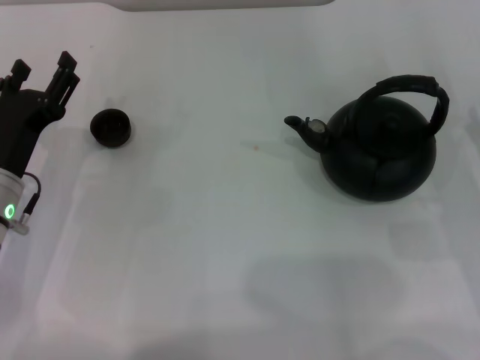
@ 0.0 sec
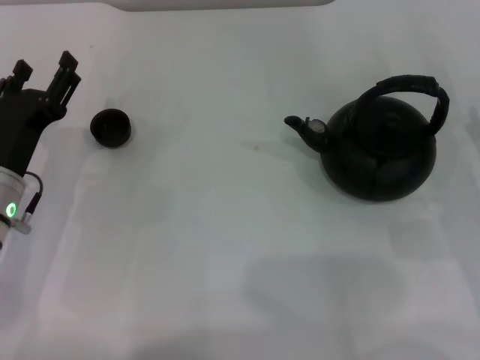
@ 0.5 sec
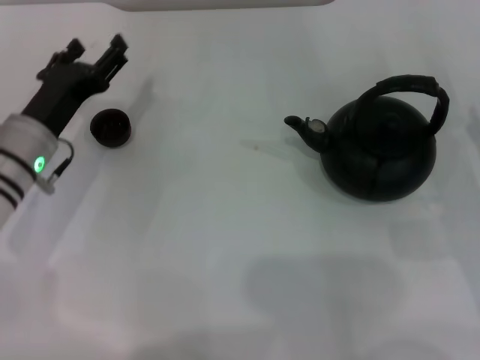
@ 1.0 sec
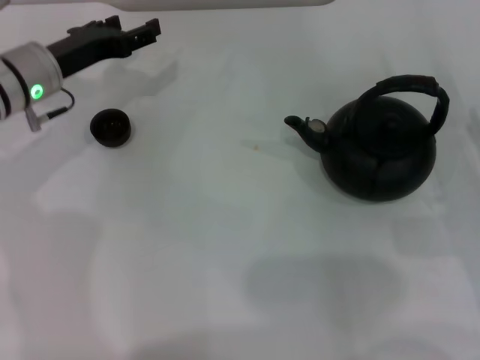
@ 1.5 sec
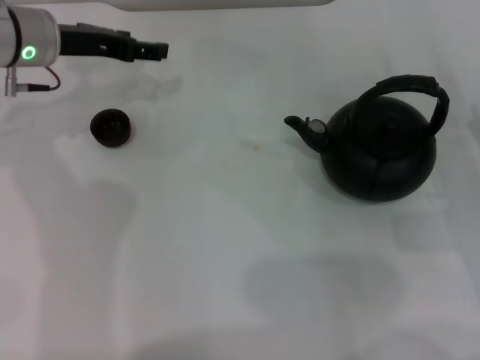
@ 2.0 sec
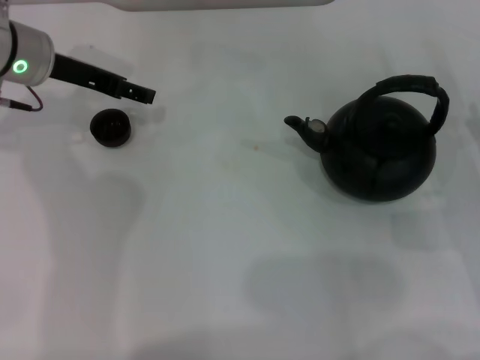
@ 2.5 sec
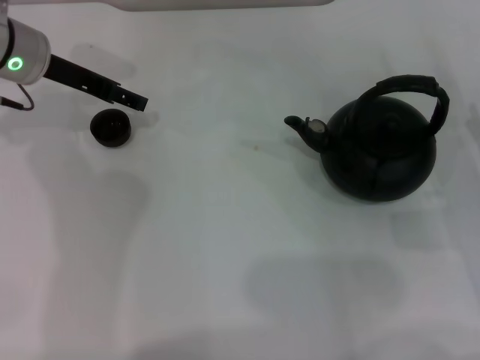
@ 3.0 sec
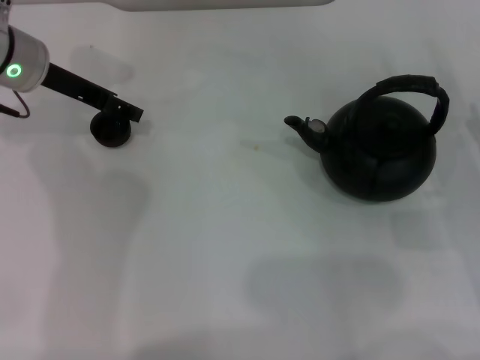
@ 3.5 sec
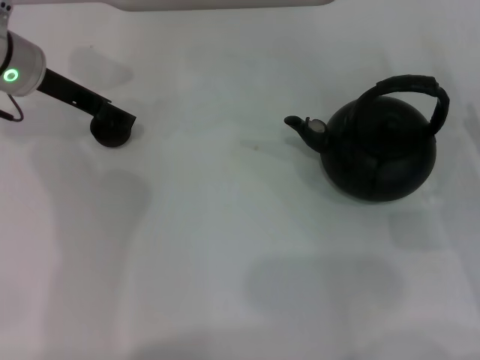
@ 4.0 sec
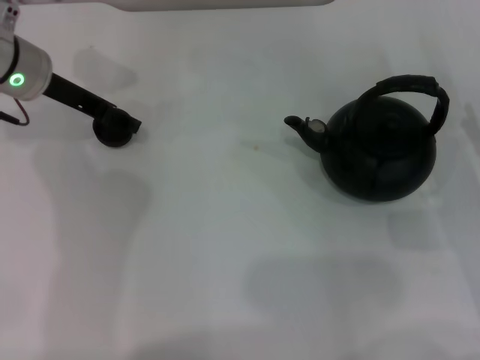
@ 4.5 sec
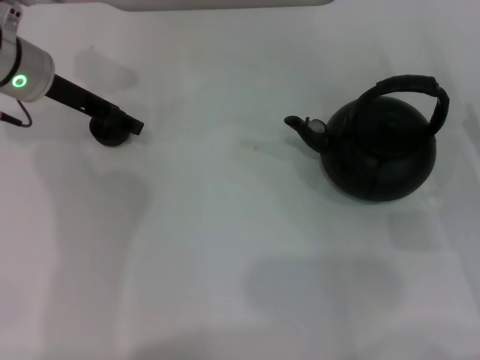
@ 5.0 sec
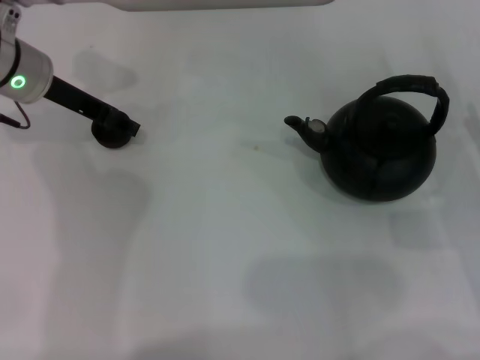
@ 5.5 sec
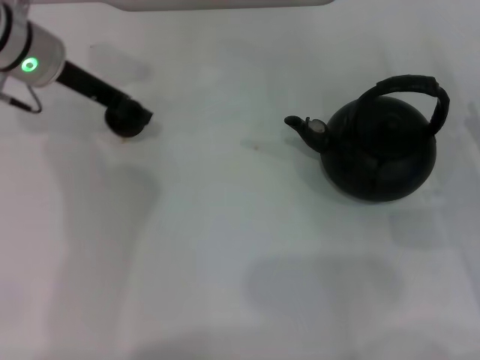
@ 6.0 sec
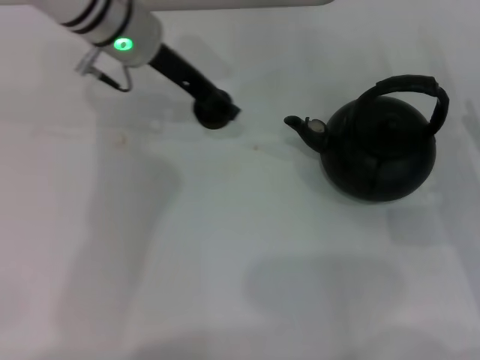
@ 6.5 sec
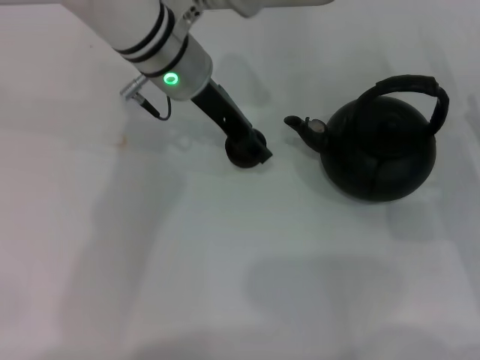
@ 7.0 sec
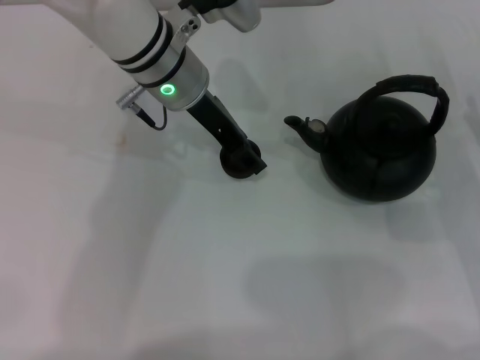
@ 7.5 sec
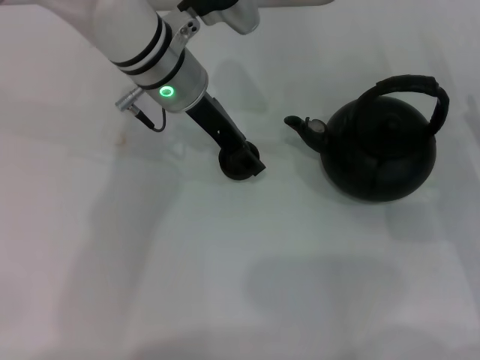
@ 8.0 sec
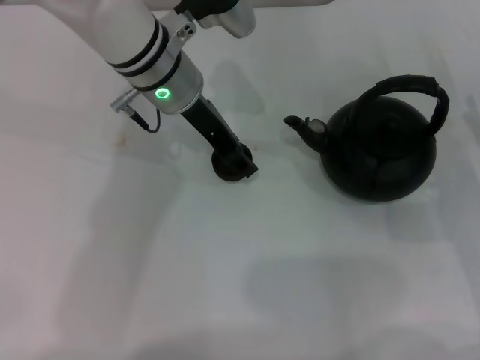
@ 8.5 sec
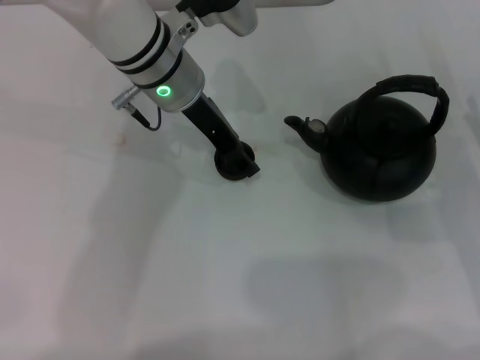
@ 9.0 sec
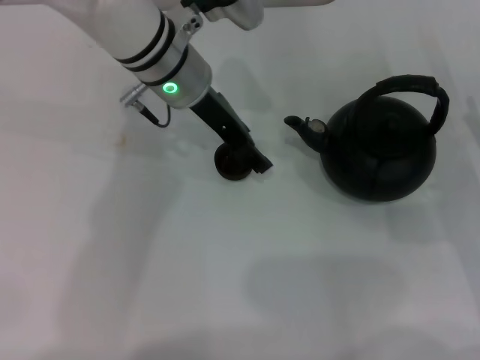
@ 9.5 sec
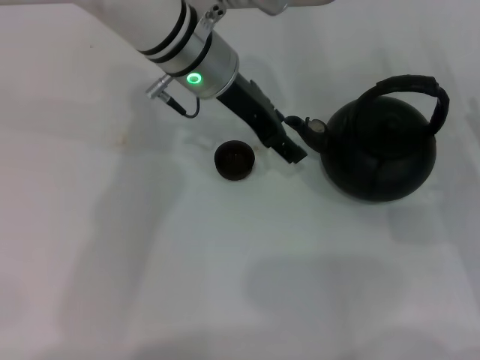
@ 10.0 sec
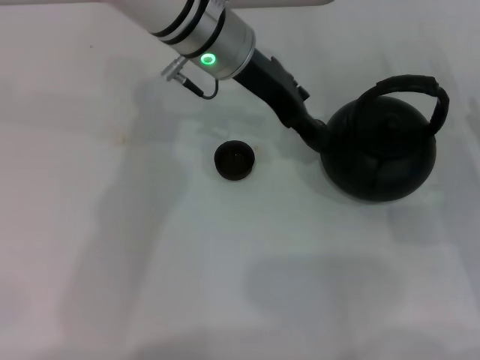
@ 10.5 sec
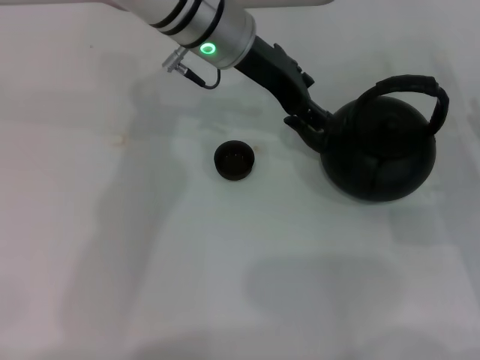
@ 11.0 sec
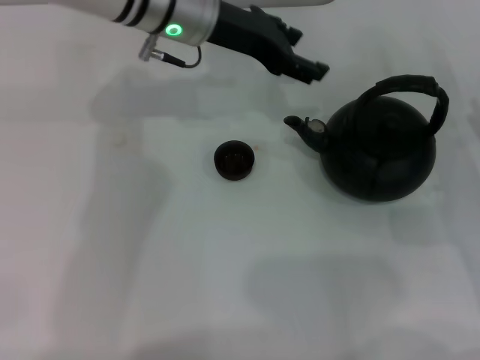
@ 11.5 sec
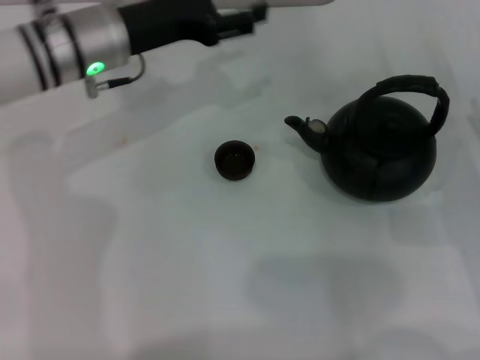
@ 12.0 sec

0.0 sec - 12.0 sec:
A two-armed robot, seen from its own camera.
Task of the whole recording: Grasp the handle of the teapot with one hand and pour tea into the teacup.
Step, 0.0 sec - 5.5 sec: Pick up the teacup with the left gripper.
Step, 6.5 sec - 11.5 sec: Place the teacup in the center of view with the left gripper.
0.0 sec - 2.0 sec: The left gripper travels forward and upward by about 20 cm.
4.0 sec - 6.0 sec: The left gripper closes.
6.0 sec - 8.0 sec: The left gripper goes about 15 cm to the right.
8.0 sec - 10.0 sec: The left gripper opens up.
10.0 sec - 12.0 sec: The left gripper heads to the left, covering some 10 cm.

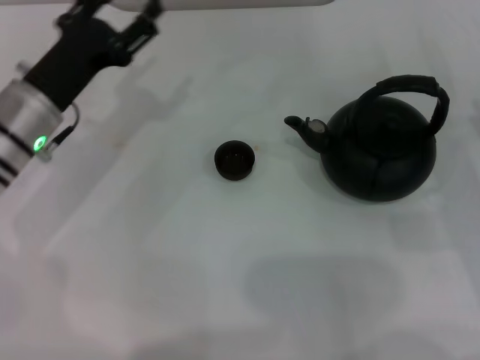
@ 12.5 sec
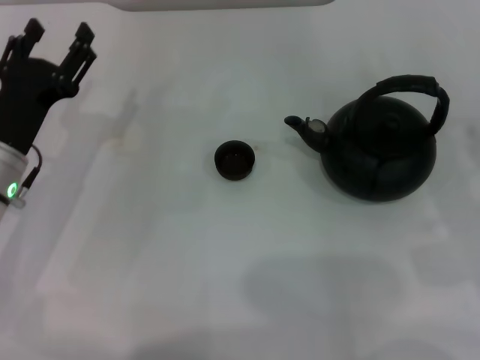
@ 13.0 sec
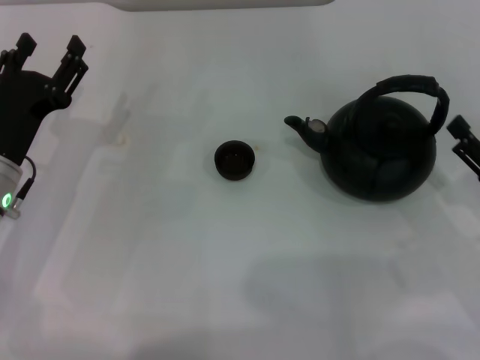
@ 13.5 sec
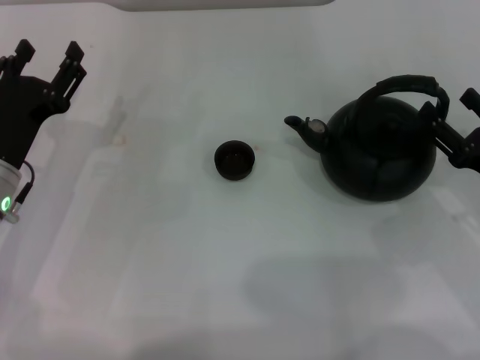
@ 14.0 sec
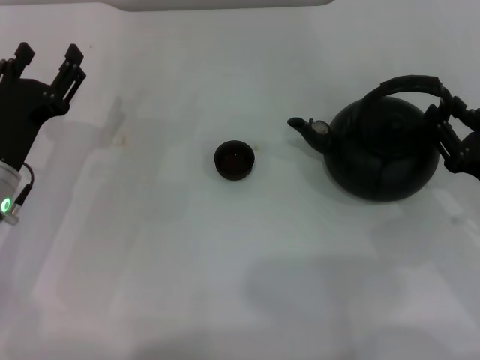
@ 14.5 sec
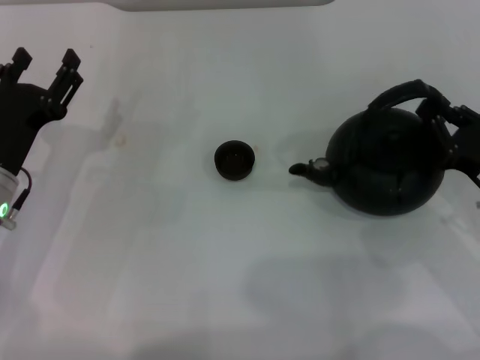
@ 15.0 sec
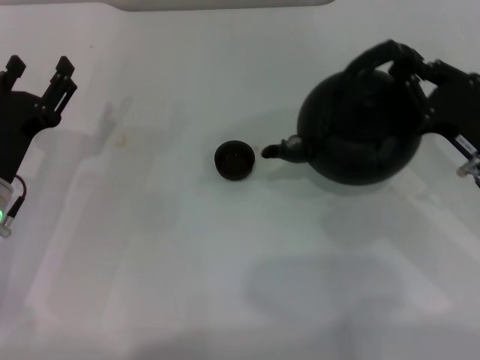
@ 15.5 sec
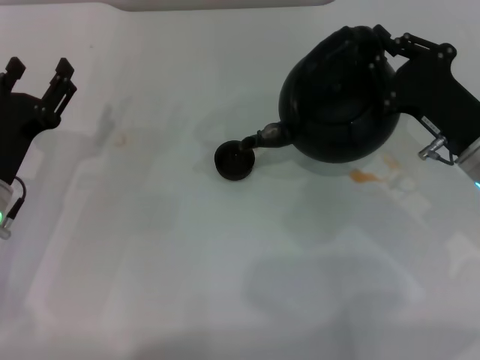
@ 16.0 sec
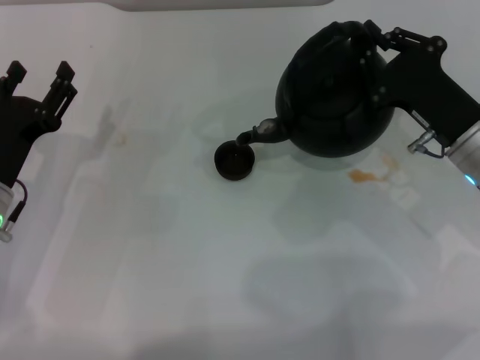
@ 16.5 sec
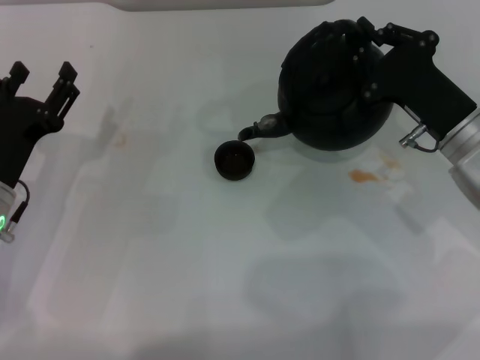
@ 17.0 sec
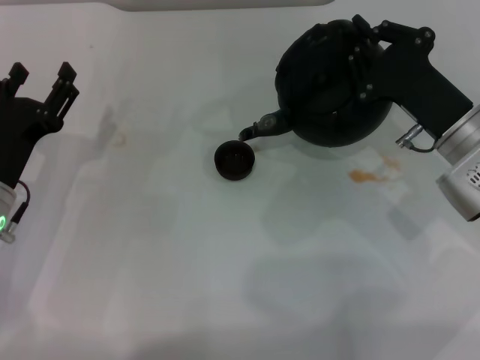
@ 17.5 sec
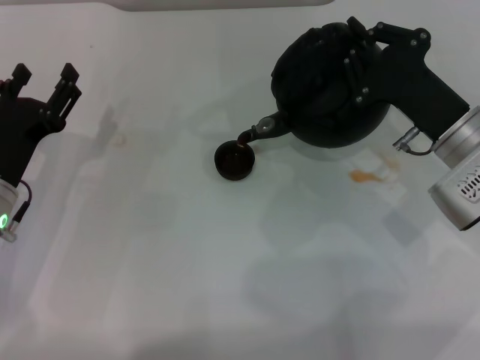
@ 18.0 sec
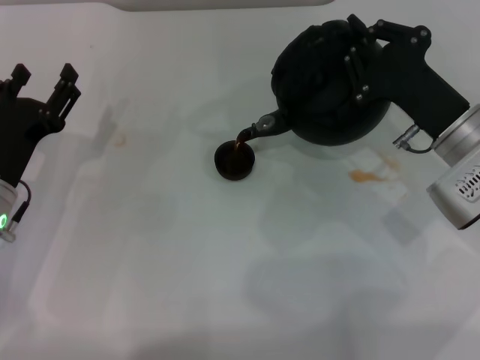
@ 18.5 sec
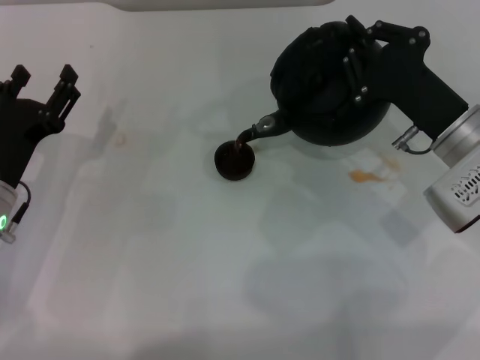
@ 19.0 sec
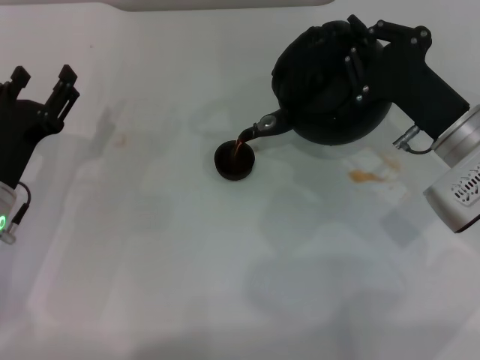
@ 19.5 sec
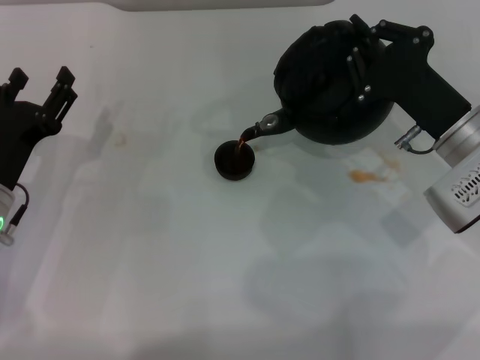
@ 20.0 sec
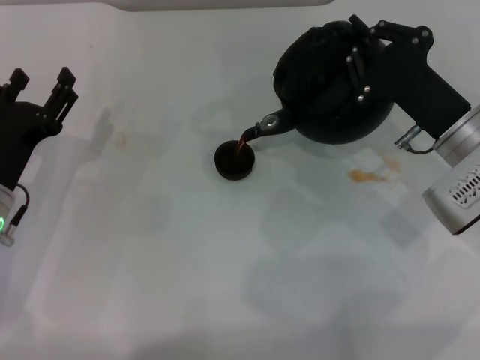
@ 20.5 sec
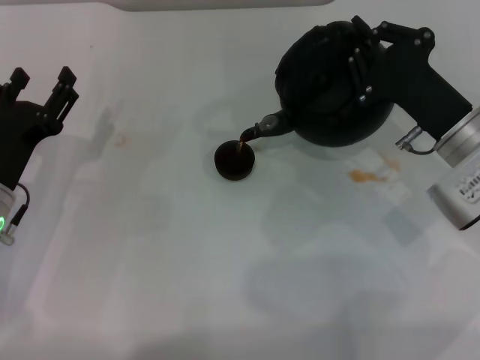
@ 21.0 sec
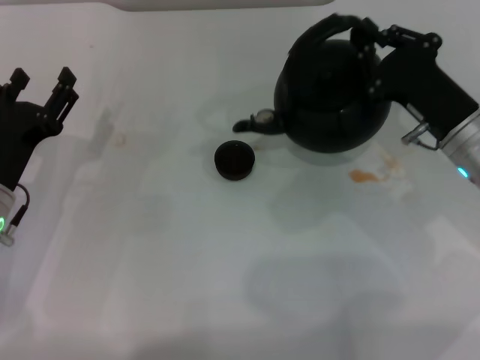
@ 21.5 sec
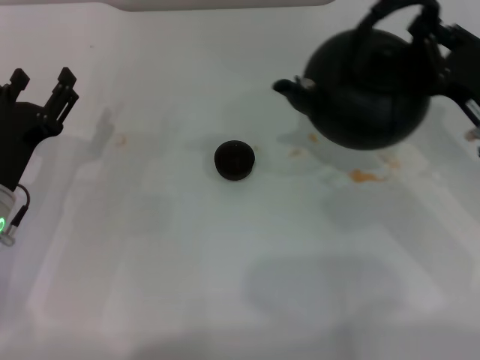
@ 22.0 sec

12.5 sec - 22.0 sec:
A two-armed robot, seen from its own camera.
Task of the whole recording: Grasp the handle of the teapot with one hand and pour tea into the teacup.
Step, 12.5 sec - 15.5 sec: Pick up the teapot with the right gripper.
Step, 16.0 sec - 21.5 sec: Pour tea into the teacup with the right gripper.
12.5 sec - 14.5 sec: The left gripper goes approximately 5 cm backward. Meanwhile the right gripper closes up.
14.5 sec - 16.5 sec: The right gripper travels to the left and forward by roughly 10 cm, and closes up.
16.5 sec - 18.0 sec: There are only small adjustments of the grippers.
18.0 sec - 20.0 sec: Neither gripper changes place.
20.0 sec - 22.0 sec: The right gripper goes roughly 5 cm to the right.

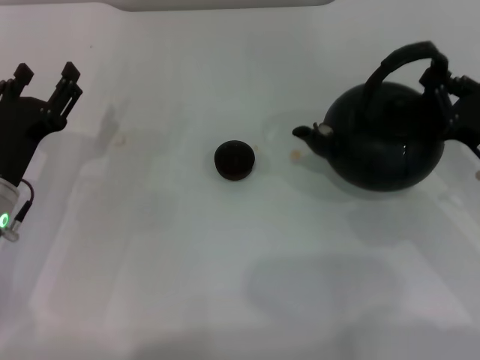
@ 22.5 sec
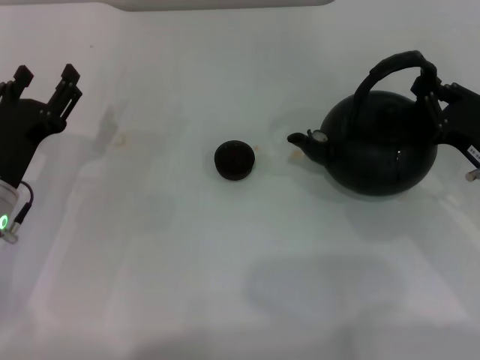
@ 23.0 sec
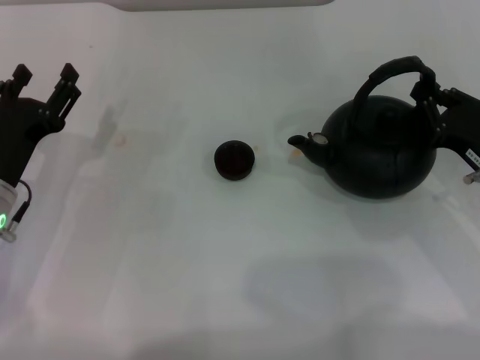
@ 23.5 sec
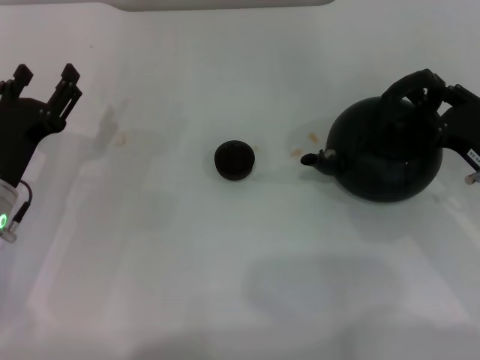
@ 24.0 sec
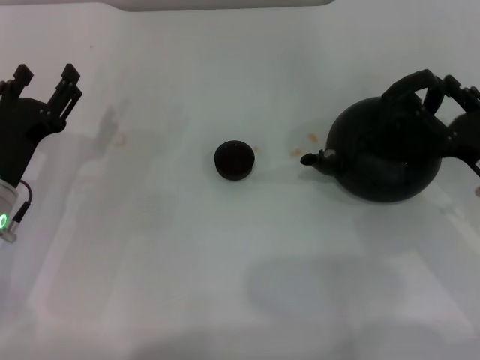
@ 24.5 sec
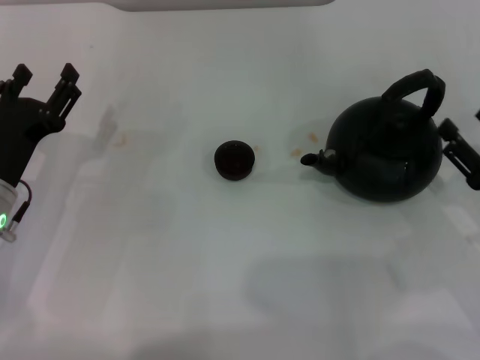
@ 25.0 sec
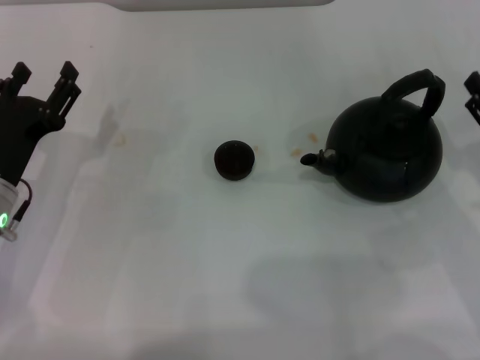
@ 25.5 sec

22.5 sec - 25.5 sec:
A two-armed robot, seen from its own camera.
Task of the whole recording: Grasp the handle of the teapot with one hand and pour tea into the teacup.
Step, 22.5 sec - 24.5 sec: Put down the teapot with the right gripper.
22.5 sec - 24.0 sec: The grippers move only a little.
24.0 sec - 25.5 sec: The right gripper opens.
